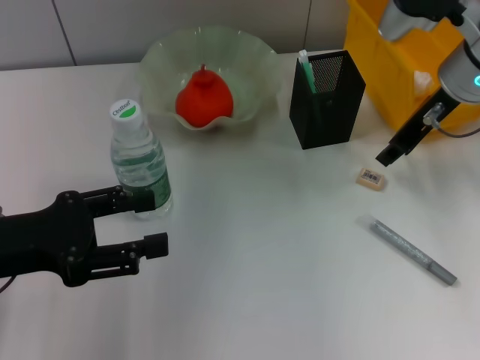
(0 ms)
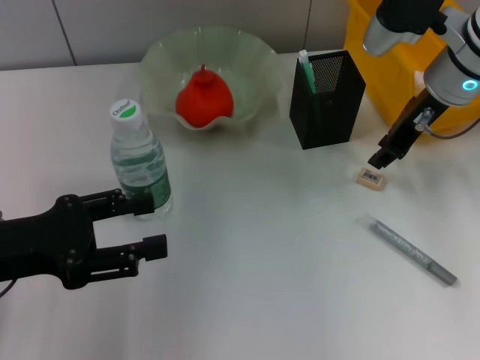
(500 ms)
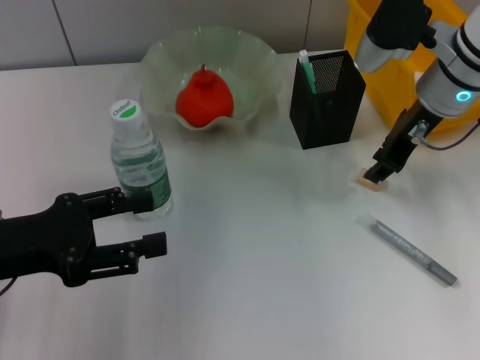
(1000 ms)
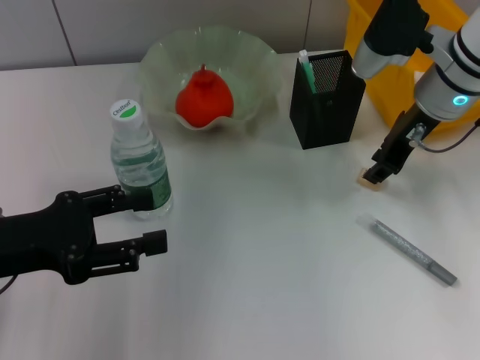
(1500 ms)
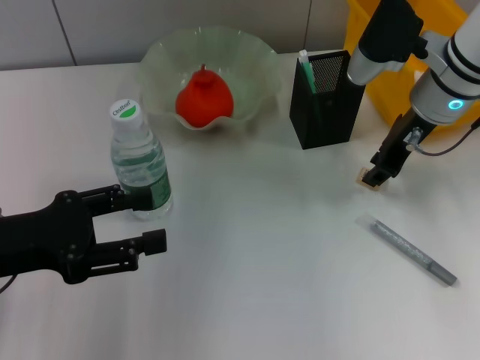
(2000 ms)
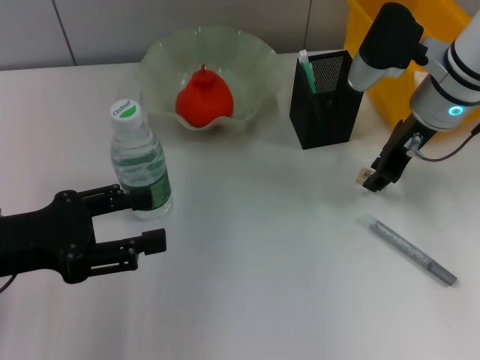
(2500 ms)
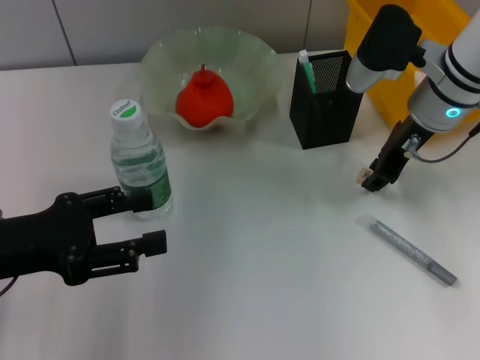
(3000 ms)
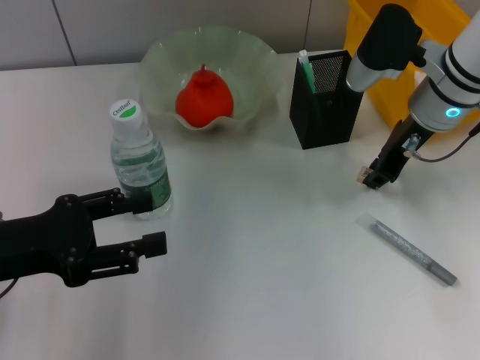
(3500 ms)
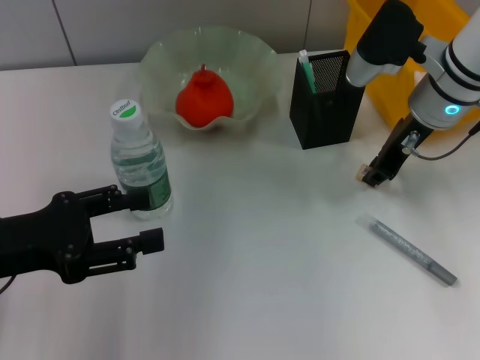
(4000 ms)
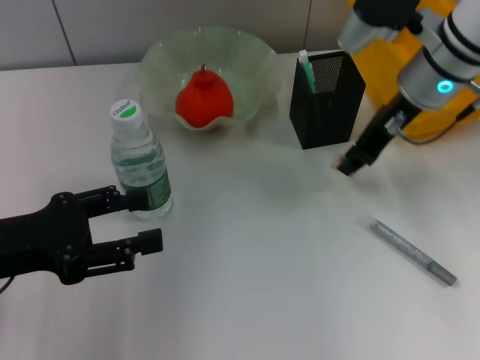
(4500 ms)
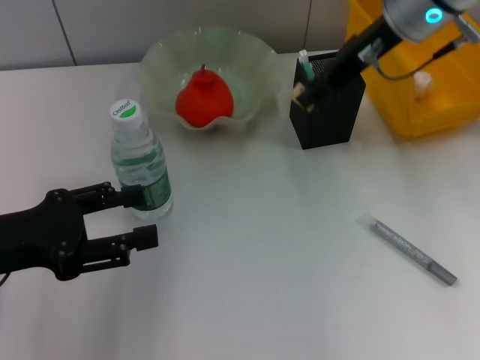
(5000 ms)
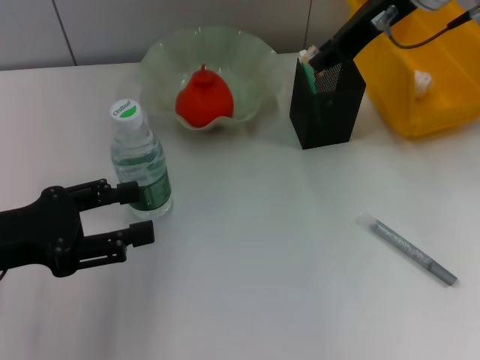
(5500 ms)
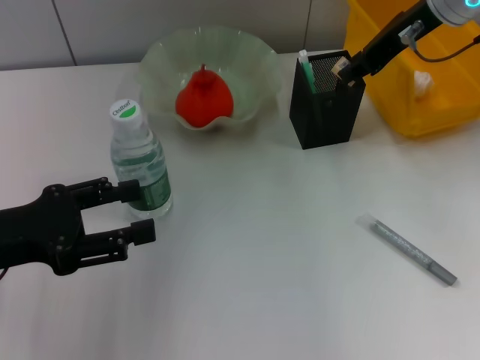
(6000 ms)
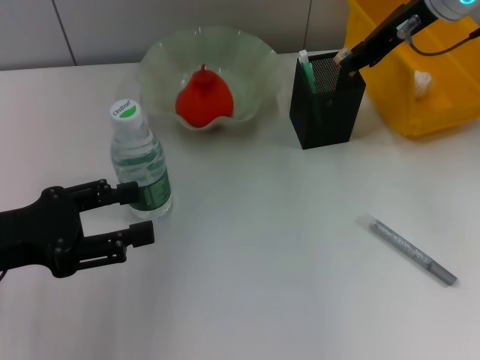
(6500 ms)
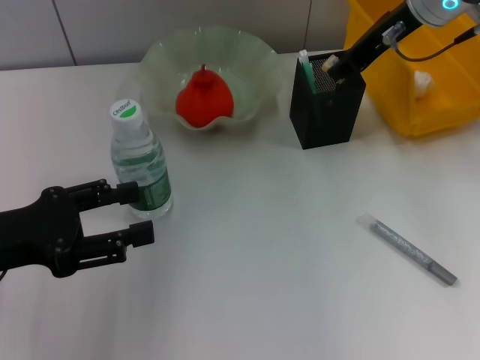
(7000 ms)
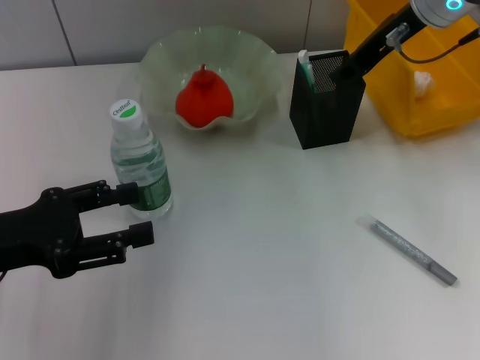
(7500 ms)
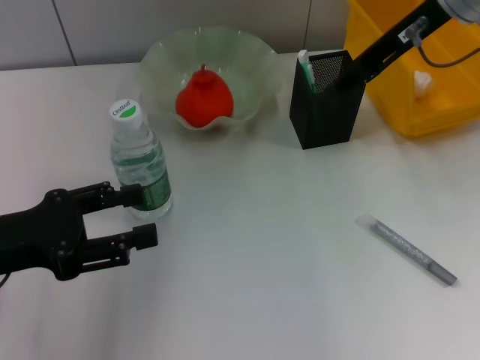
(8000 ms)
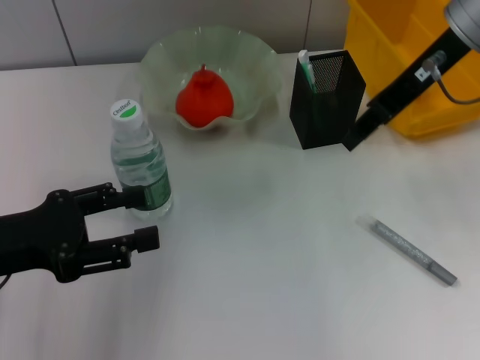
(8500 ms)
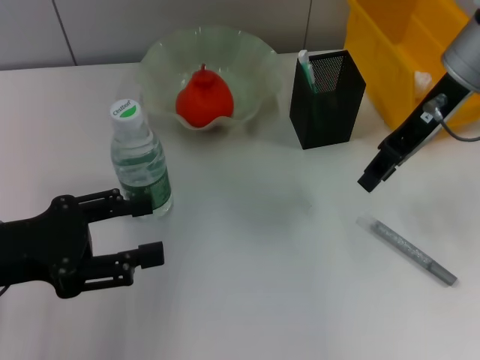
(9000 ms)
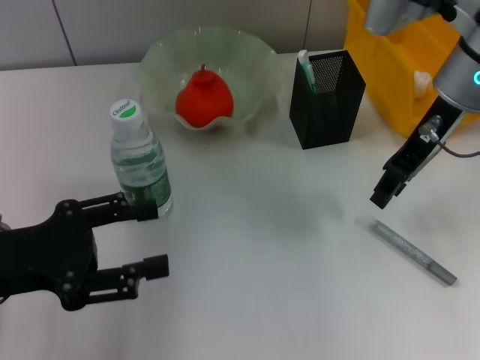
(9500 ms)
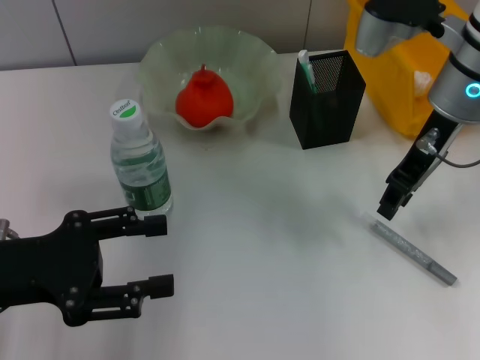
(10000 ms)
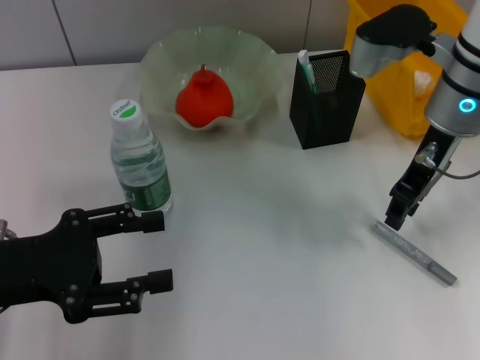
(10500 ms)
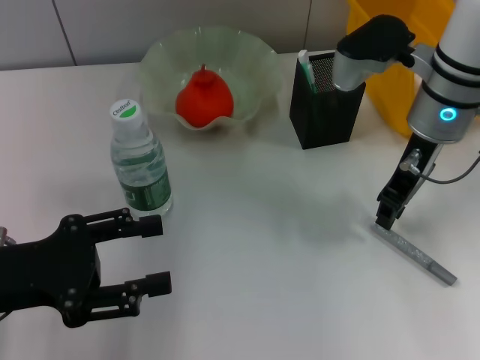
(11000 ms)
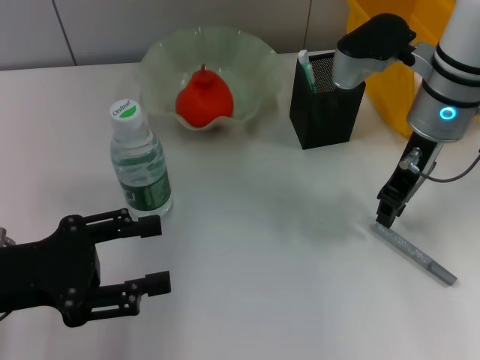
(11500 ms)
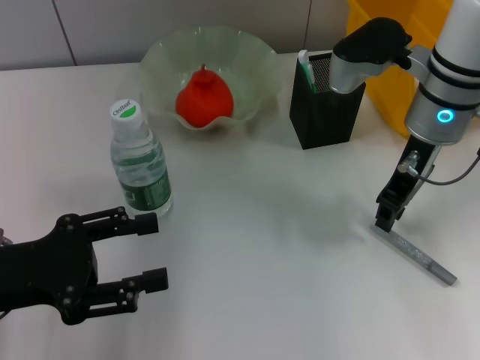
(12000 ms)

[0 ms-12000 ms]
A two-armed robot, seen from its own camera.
Step, 0 ms to 3500 ms: Grab the eraser with the right hand.
Step, 4000 ms to 7000 ms: Put the eraser into the pen holder with the right hand.
0 ms to 2000 ms: There are only small adjustments of the grippers.
2000 ms to 4000 ms: Both grippers stay put.
4000 ms to 6000 ms: The right gripper travels upward by some 10 cm.
6000 ms to 8000 ms: The grippers make only small movements.
8000 ms to 10000 ms: The right gripper is displaced downward by about 10 cm.
10000 ms to 12000 ms: The grippers stay close to where they were, moving slightly.

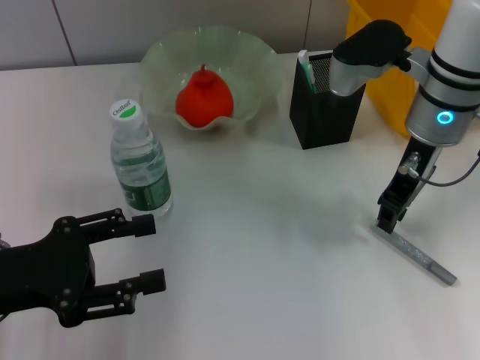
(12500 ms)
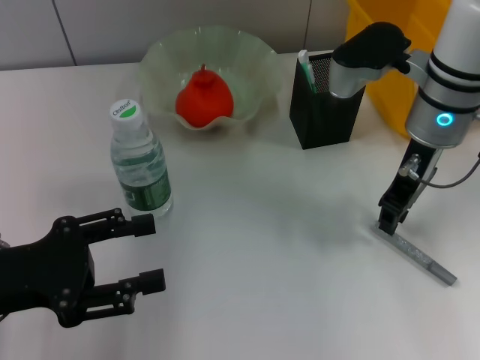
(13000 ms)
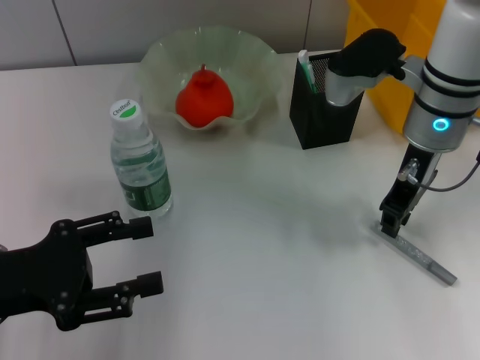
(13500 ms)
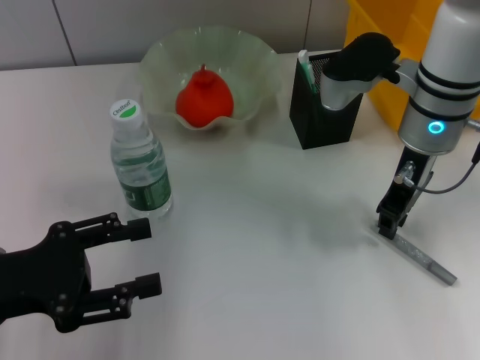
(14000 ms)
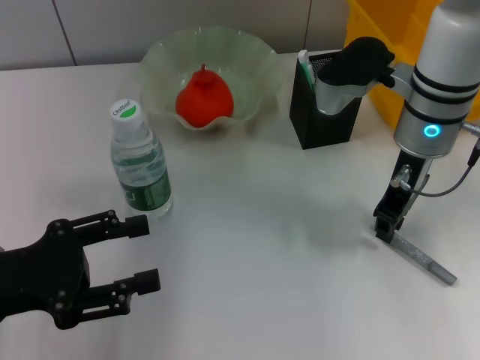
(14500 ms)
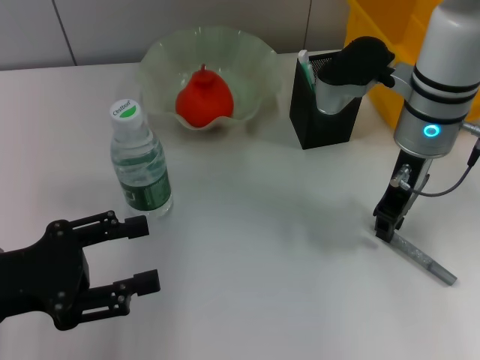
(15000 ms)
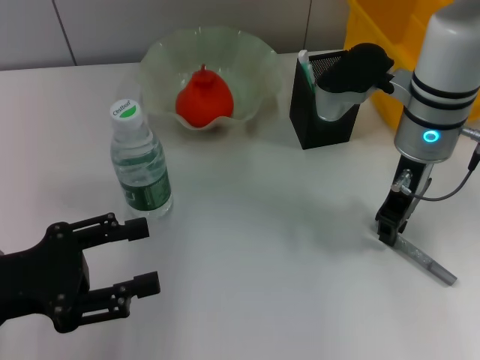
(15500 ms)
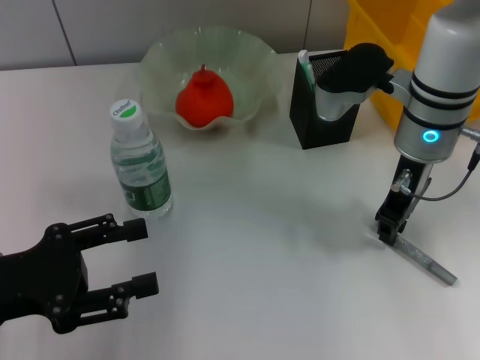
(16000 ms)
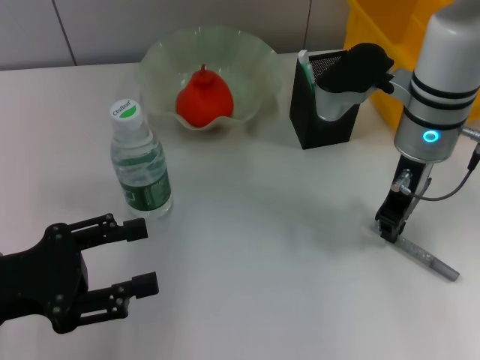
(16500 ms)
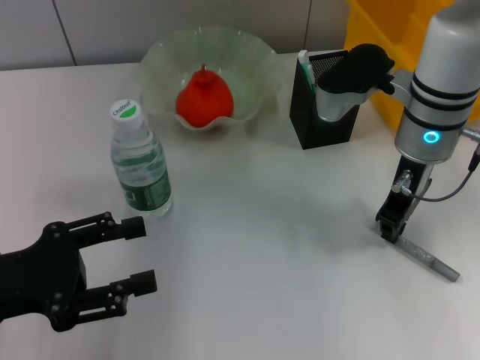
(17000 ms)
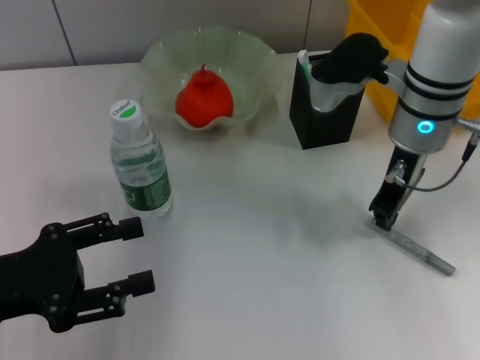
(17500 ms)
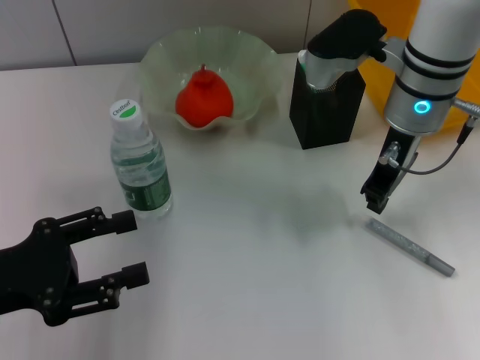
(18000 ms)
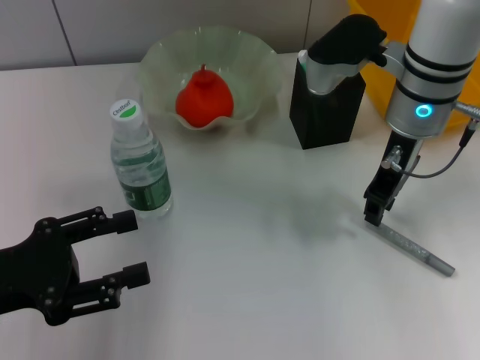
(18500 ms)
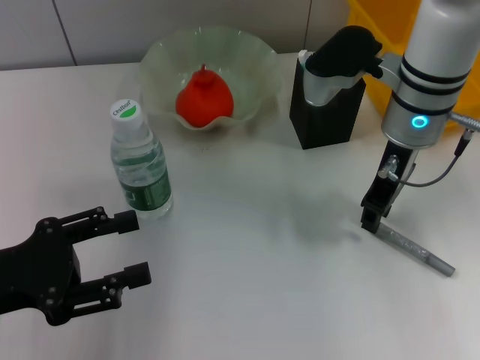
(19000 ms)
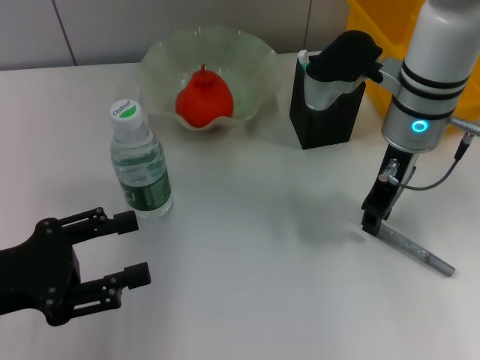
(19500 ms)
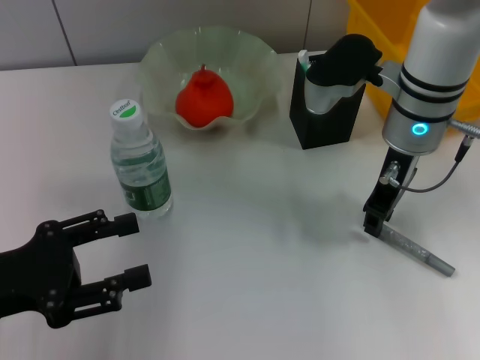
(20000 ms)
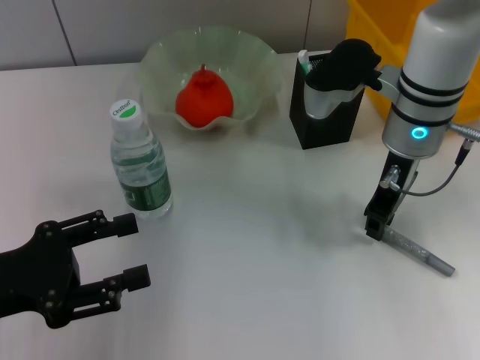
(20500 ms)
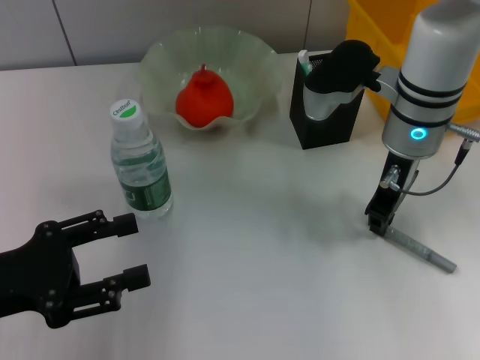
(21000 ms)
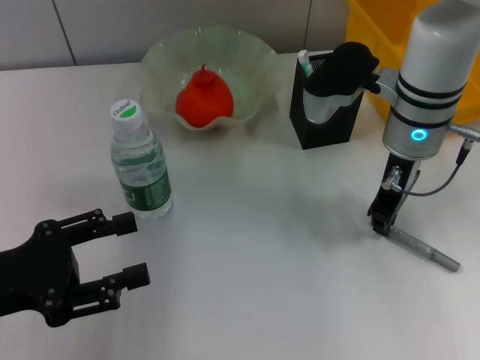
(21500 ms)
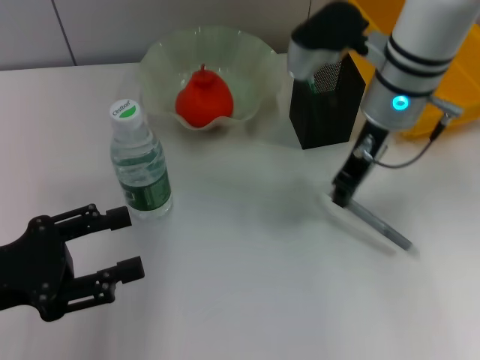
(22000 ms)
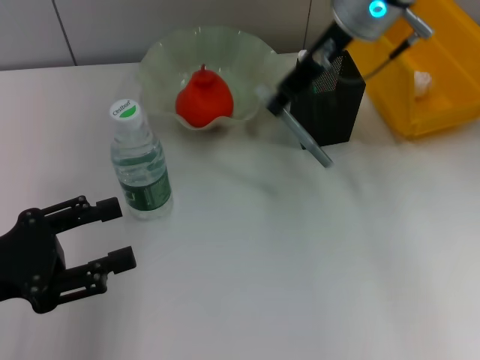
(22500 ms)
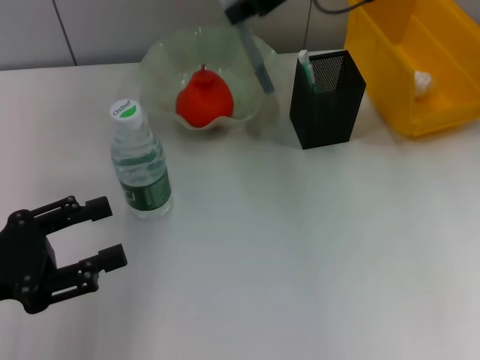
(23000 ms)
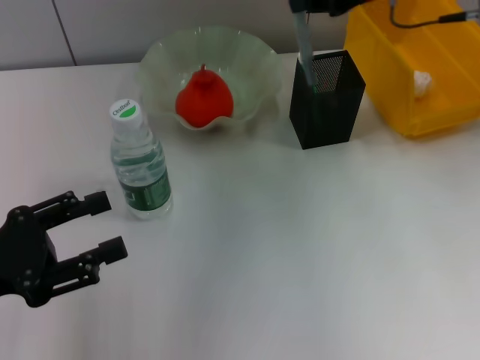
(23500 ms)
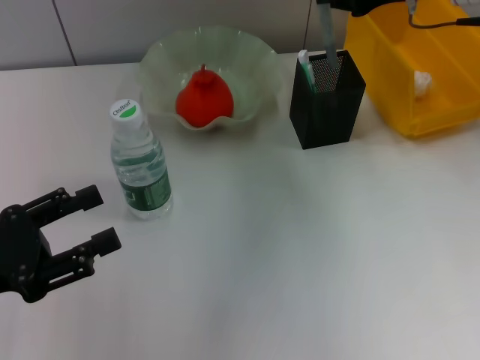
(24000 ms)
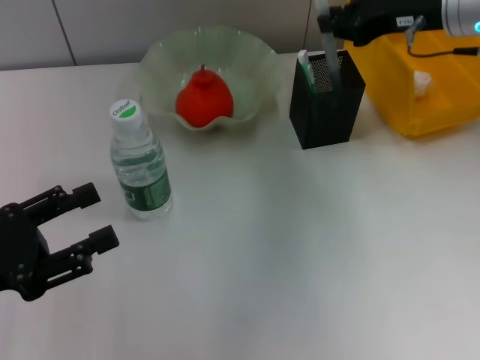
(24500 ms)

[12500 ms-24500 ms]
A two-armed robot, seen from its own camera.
Step, 12500 ms to 21500 ms: Grab the gray glue with the right hand.
12500 ms to 14500 ms: The grippers stay close to where they were, moving slightly.
14500 ms to 16500 ms: The two grippers keep their place.
16500 ms to 20500 ms: The grippers move only a little.
20500 ms to 22500 ms: The right gripper heads upward, covering approximately 10 cm.
22500 ms to 24500 ms: The right gripper heads to the right, covering about 10 cm.

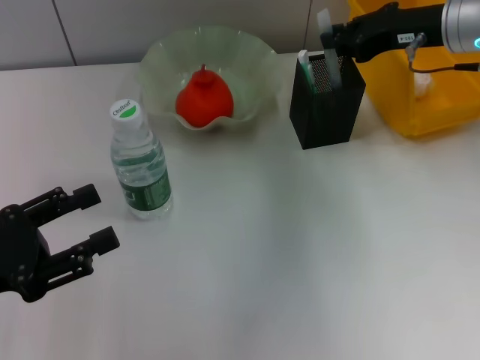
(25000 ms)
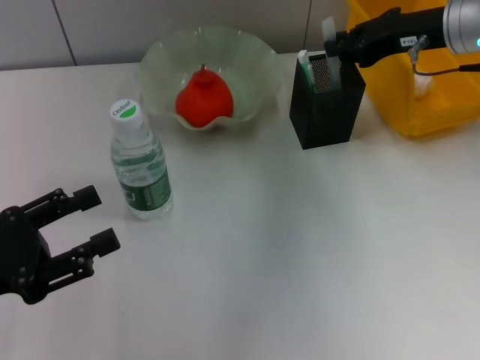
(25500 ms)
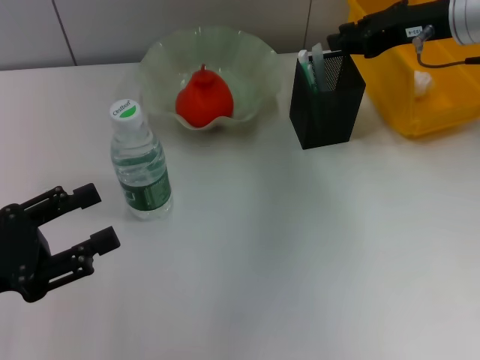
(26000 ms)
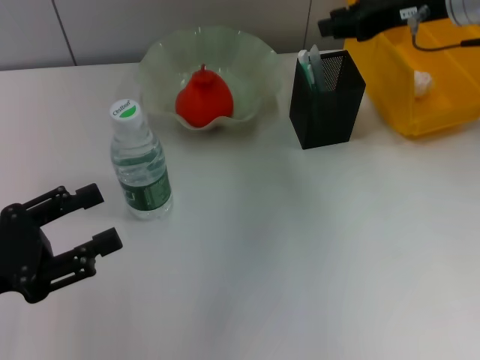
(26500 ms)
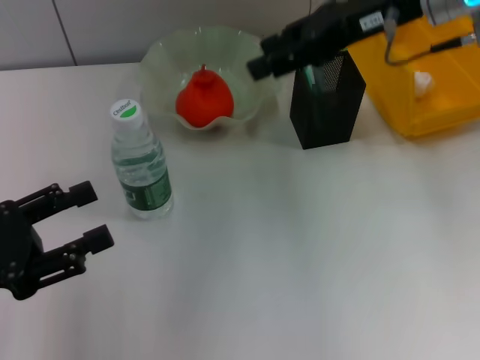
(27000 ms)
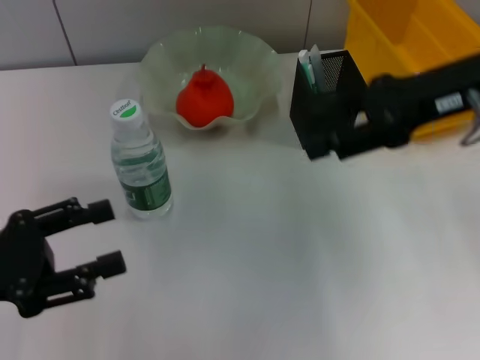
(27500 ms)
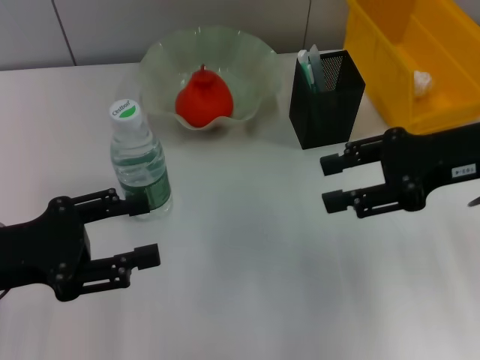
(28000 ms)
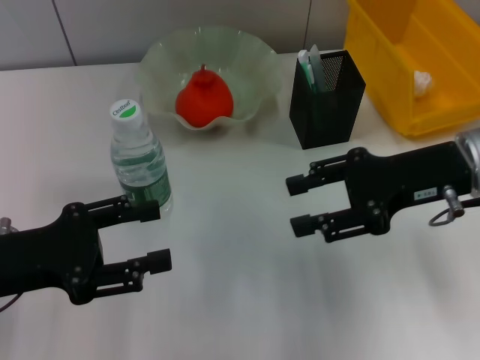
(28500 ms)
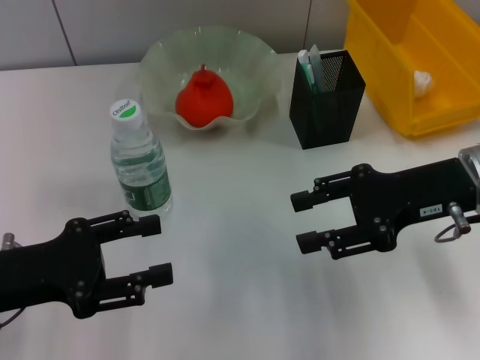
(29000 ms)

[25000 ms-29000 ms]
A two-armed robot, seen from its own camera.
25000 ms to 27000 ms: The right gripper moves upward and to the left, roughly 10 cm, and opens.
27000 ms to 29000 ms: The right gripper travels downward and backward by some 15 cm.
